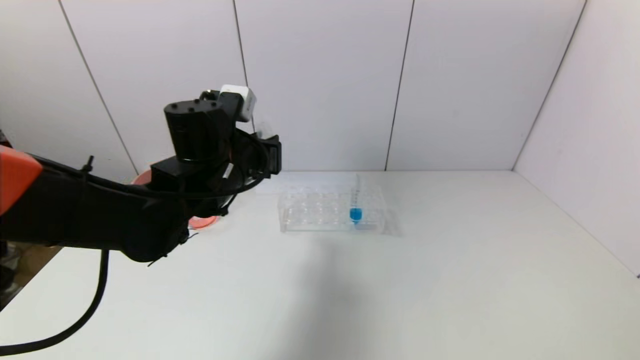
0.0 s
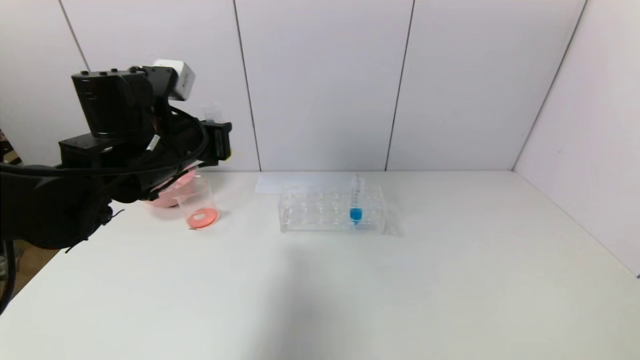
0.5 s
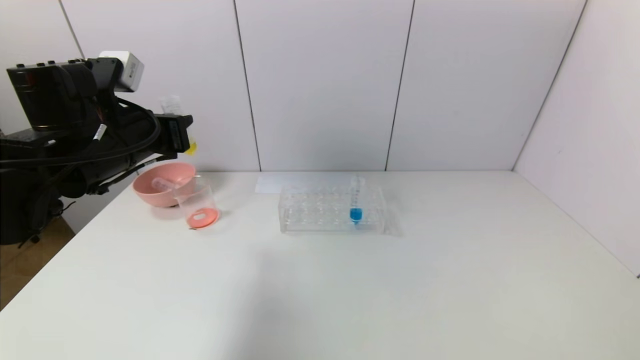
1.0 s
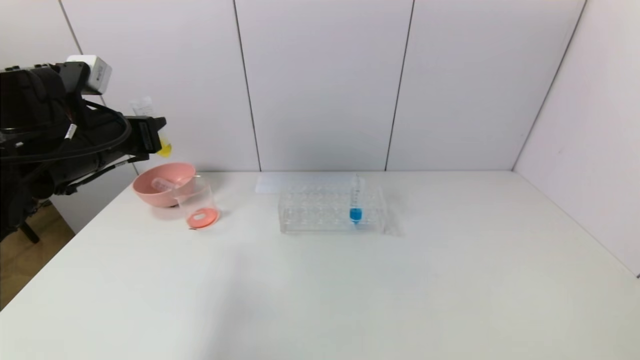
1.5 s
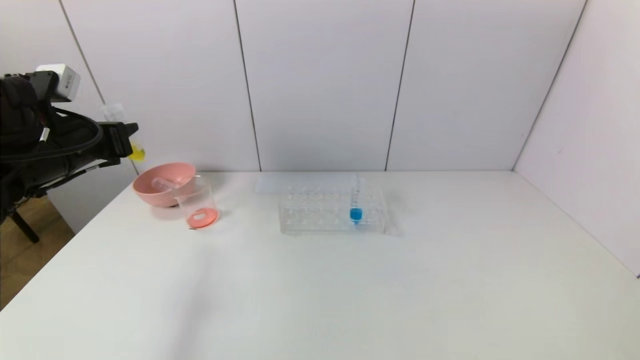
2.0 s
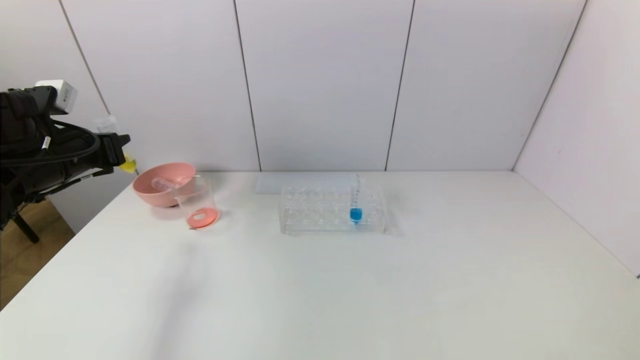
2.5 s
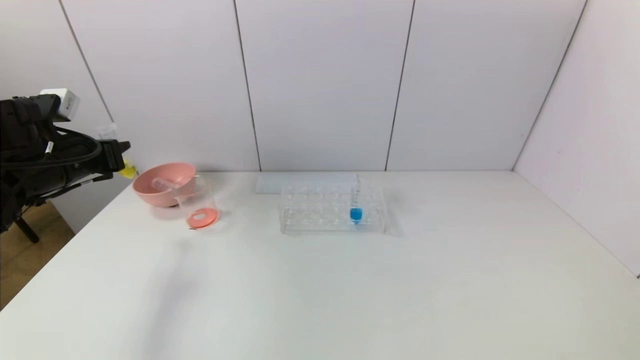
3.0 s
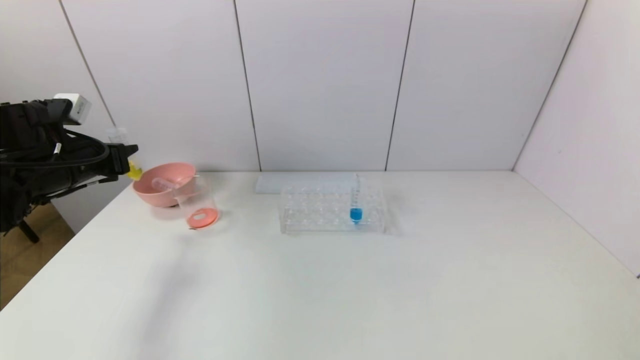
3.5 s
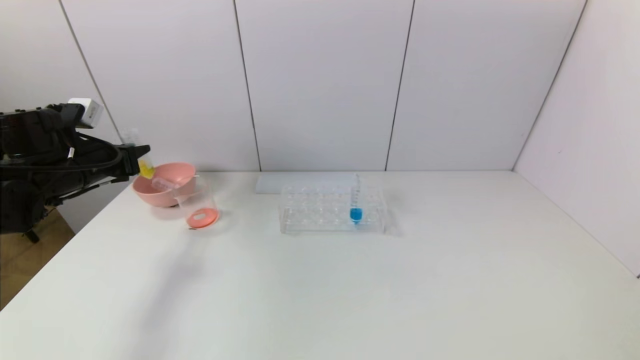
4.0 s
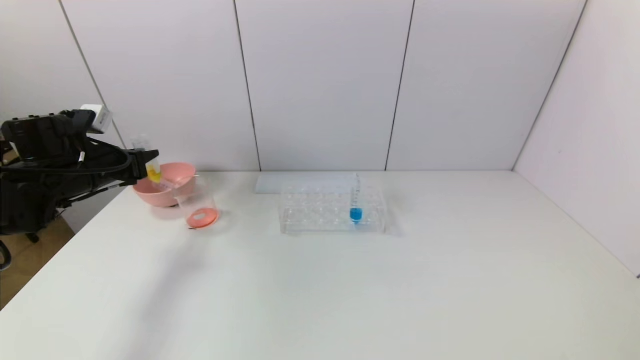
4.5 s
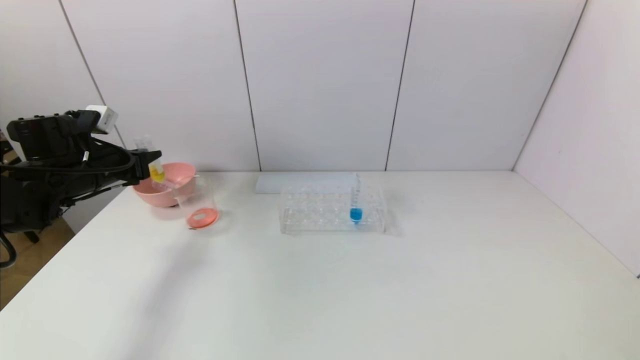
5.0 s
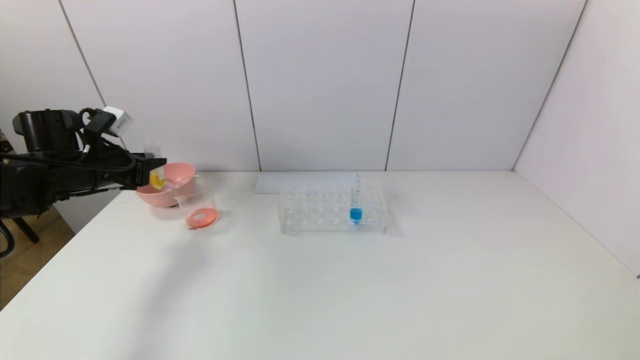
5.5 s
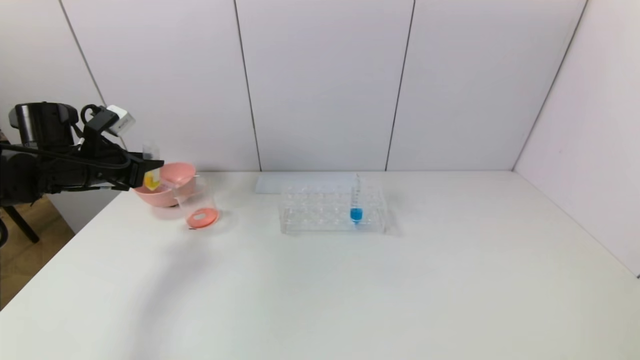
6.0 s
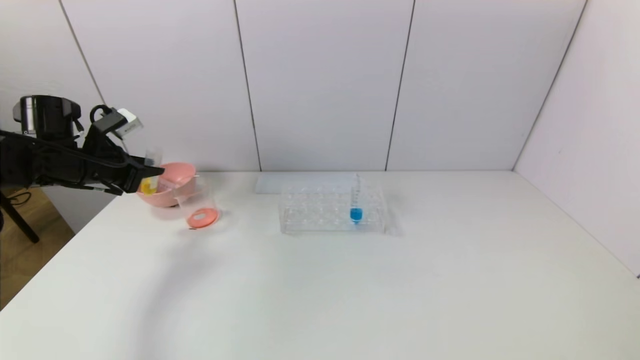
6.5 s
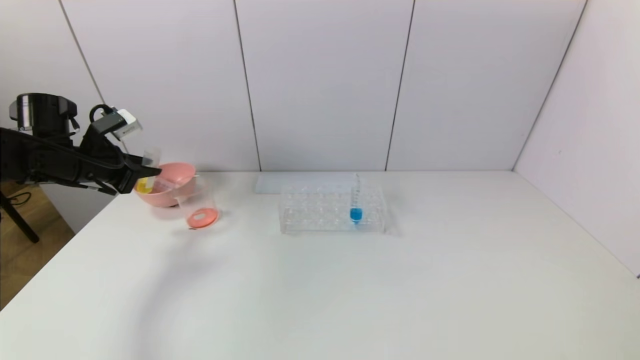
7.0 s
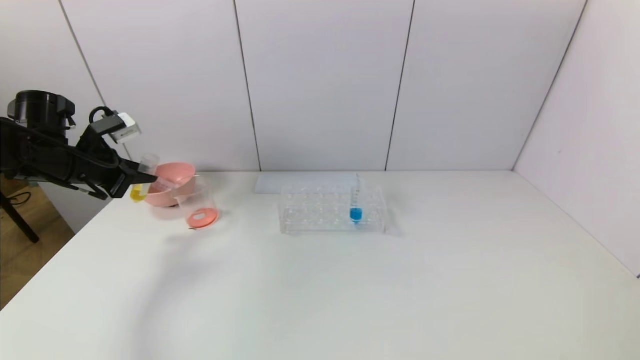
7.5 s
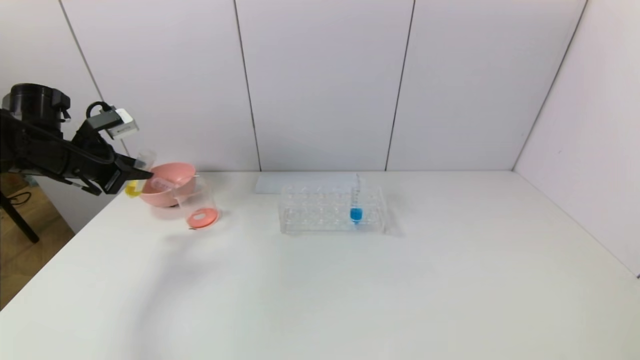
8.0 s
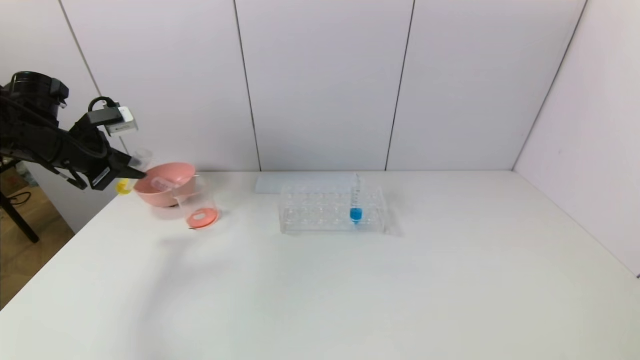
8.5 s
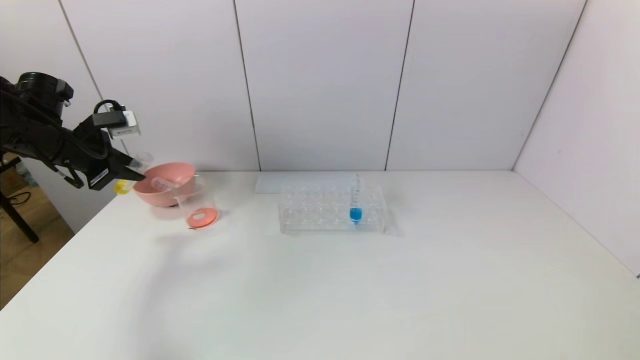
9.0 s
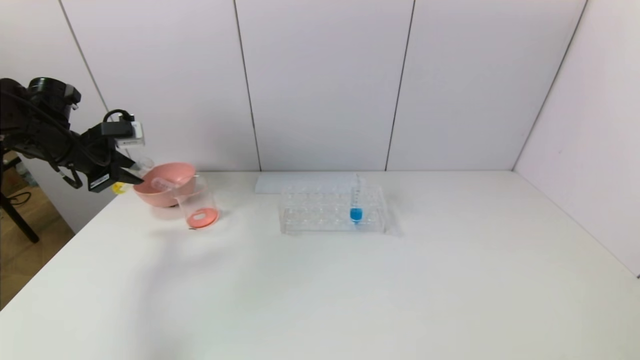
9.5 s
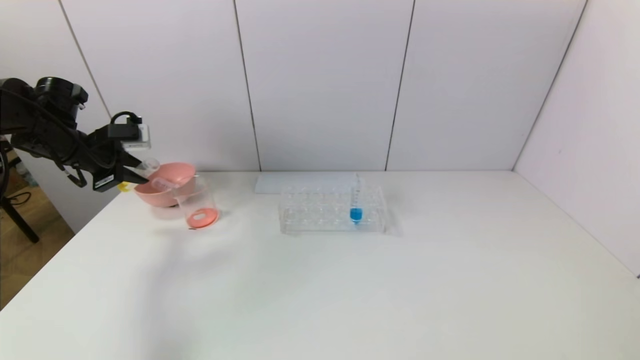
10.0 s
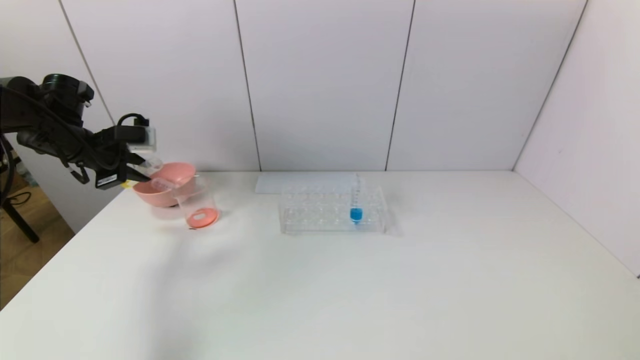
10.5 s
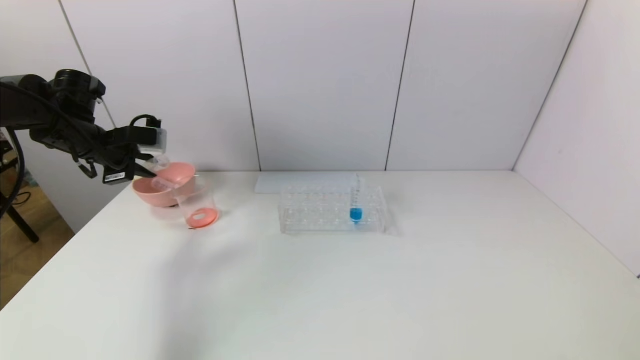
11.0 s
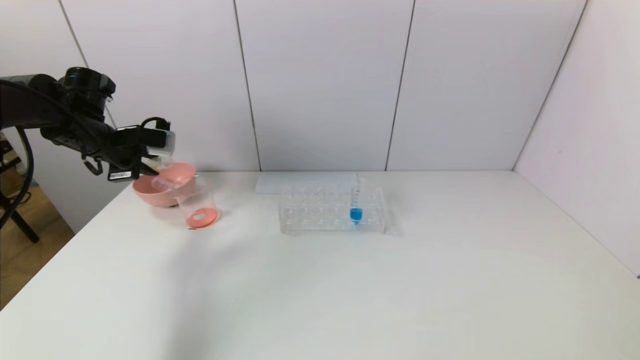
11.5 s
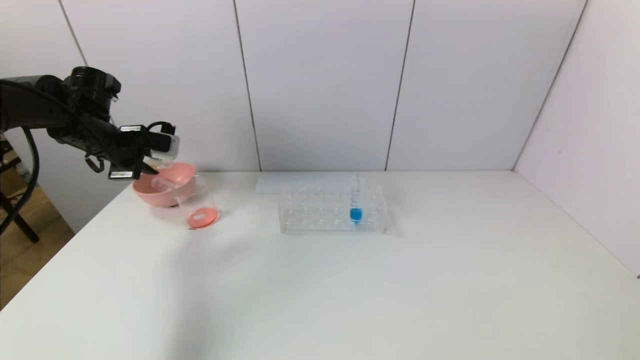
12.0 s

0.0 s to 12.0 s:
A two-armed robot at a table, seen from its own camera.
Task of the whole recording: pick up the test tube with yellow pigment and the test tube with red pigment by grippers and pour them into the beaker.
0.0 to 2.0 s: The left gripper goes roughly 20 cm to the left.
2.0 to 4.0 s: The left gripper heads downward, covering approximately 5 cm.

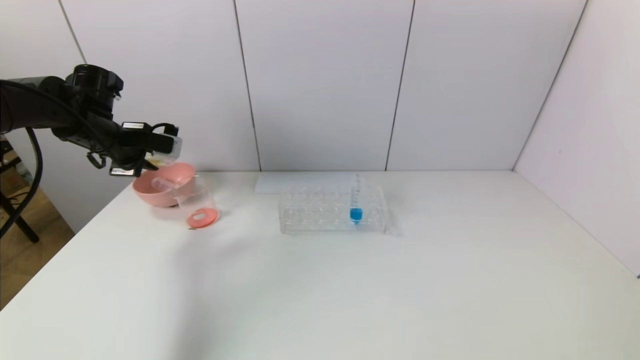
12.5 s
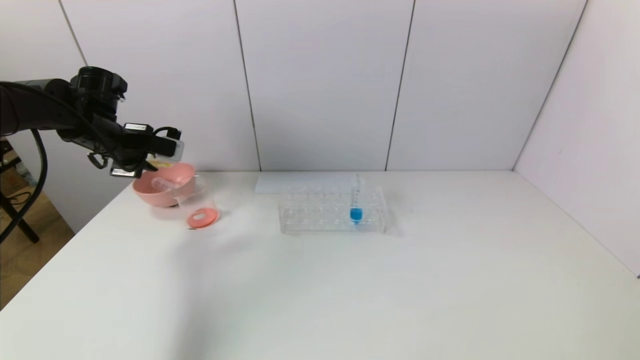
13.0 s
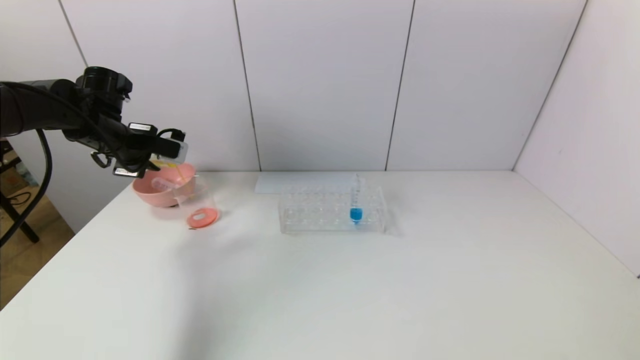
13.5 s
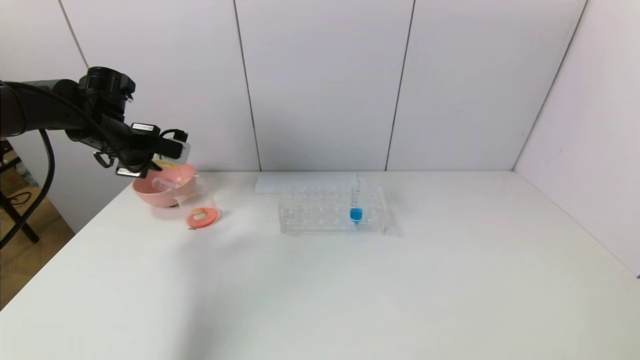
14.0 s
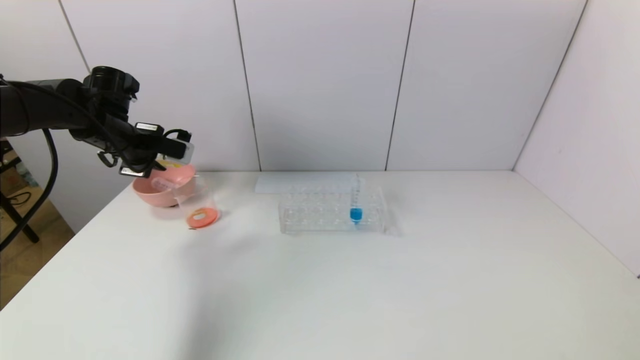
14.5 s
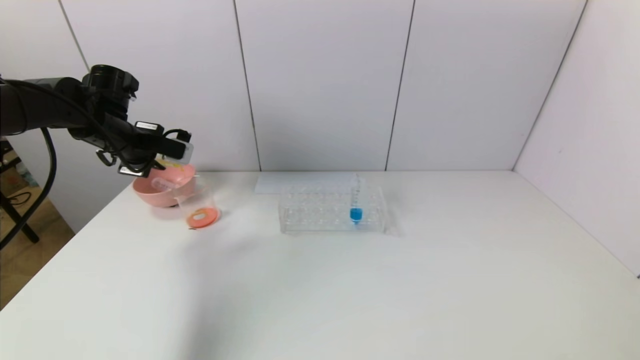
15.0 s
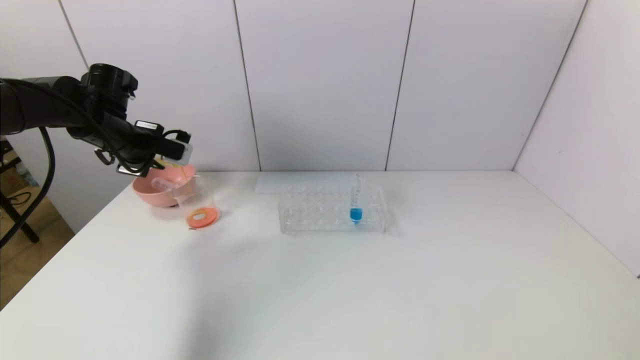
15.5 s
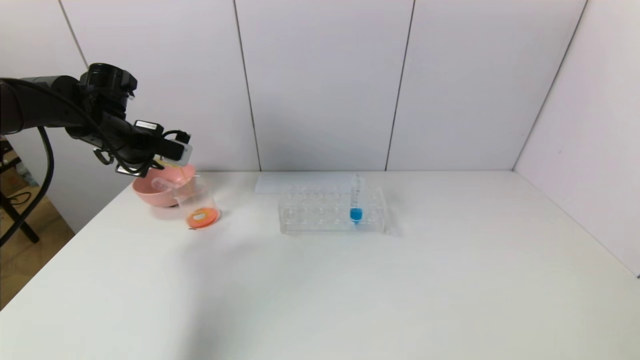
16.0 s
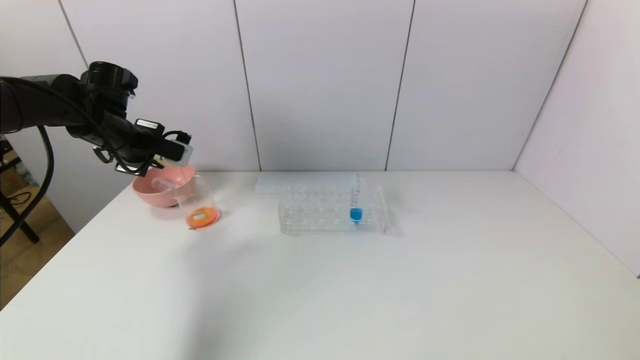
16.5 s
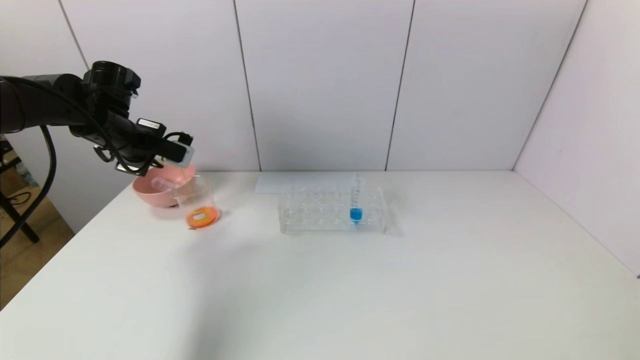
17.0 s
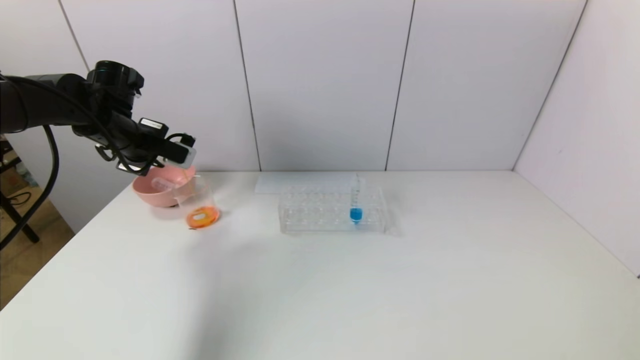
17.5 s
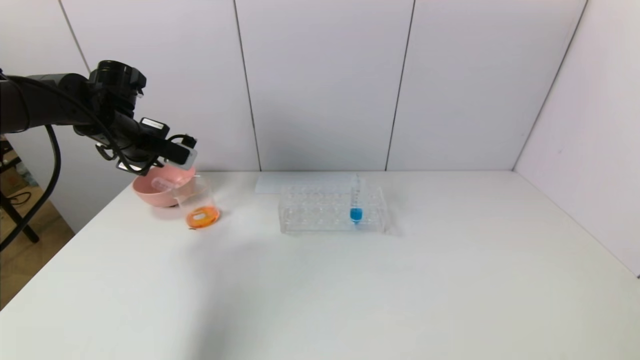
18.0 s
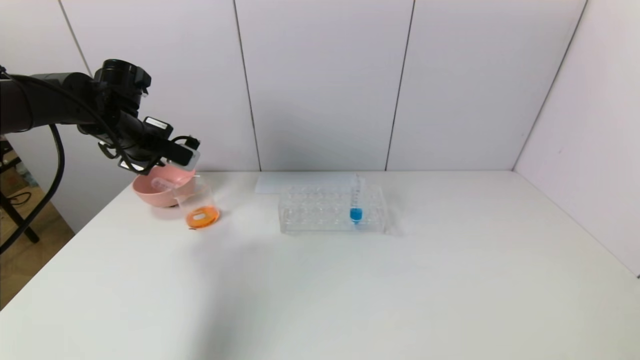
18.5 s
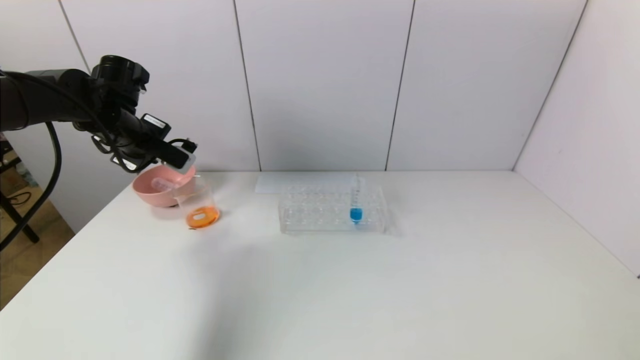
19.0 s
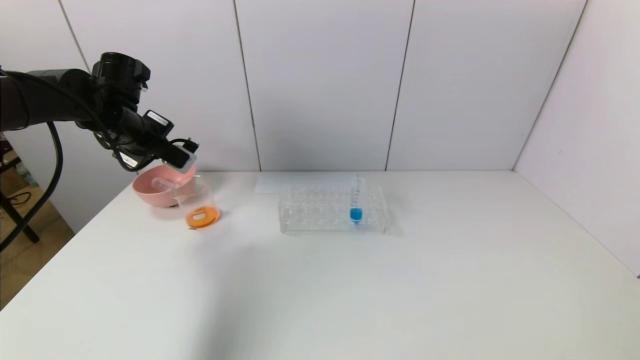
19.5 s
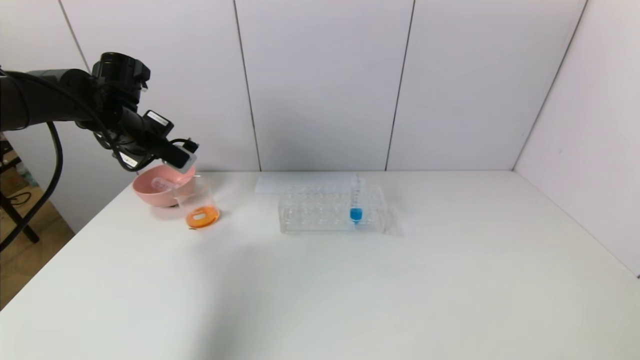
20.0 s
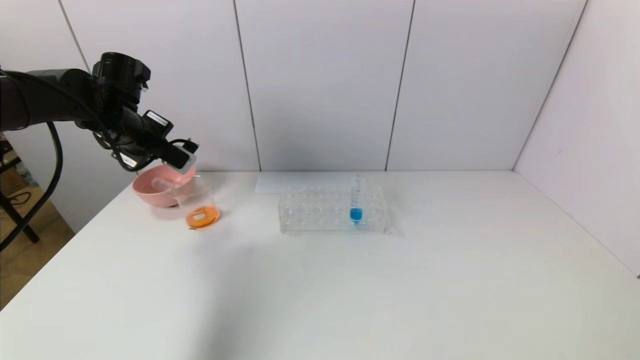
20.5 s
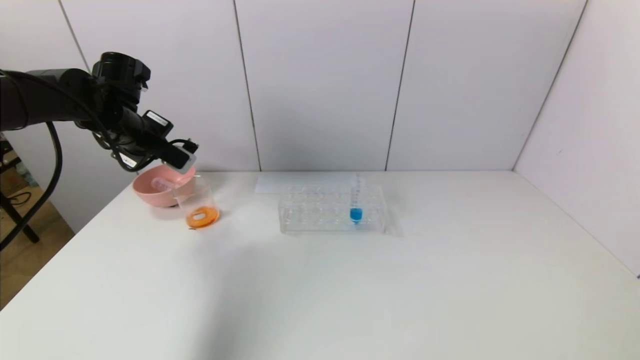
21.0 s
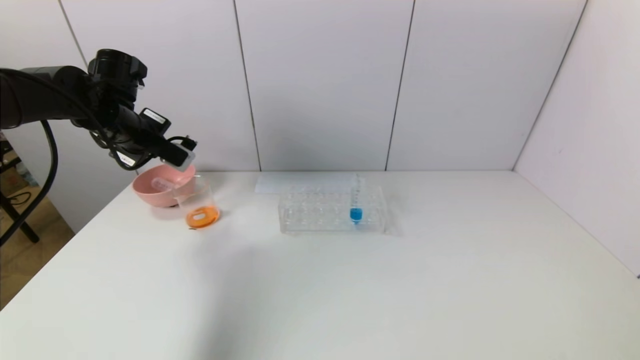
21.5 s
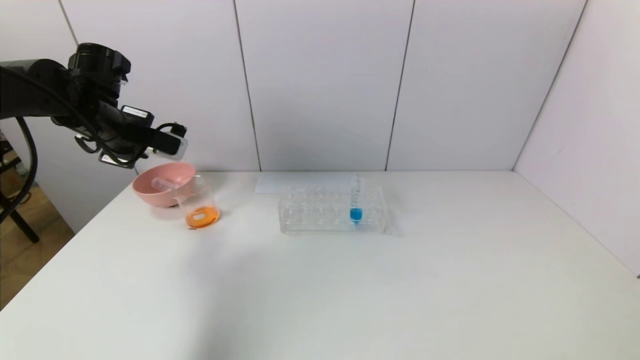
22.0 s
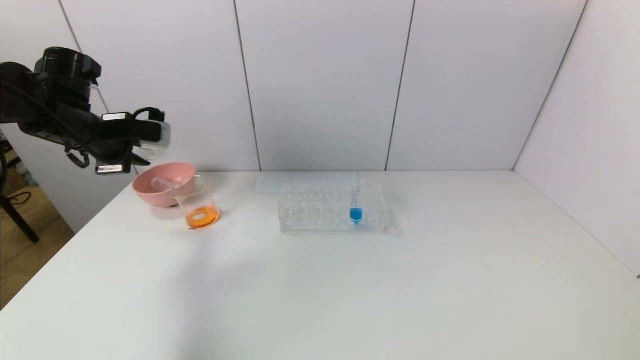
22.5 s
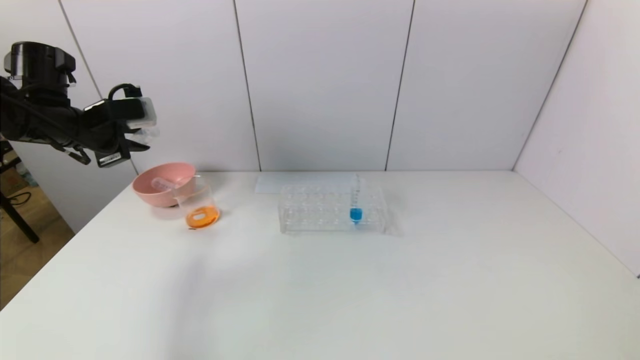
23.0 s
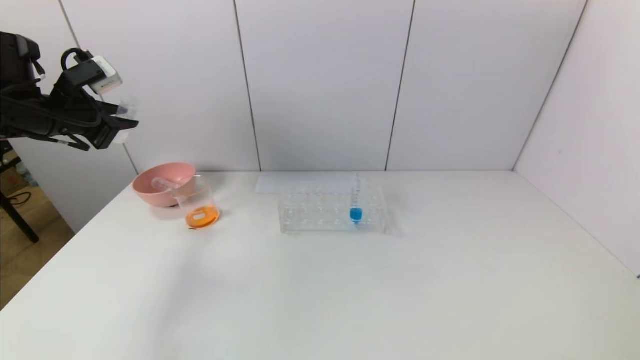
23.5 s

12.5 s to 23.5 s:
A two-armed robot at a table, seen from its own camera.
Task of the whole recording: pick up the test tube with yellow pigment and the test tube with red pigment by grippers and pour them into the beaker.
Step, 12.5 to 18.5 s: Pour the yellow reagent into the graduated cylinder with the left gripper.
12.5 to 14.5 s: The grippers move only a little.
14.5 to 16.0 s: The two grippers keep their place.
16.0 to 20.0 s: The grippers make only small movements.
20.0 to 21.5 s: Both grippers stay put.
21.5 to 23.5 s: The left gripper shifts about 5 cm to the left.
